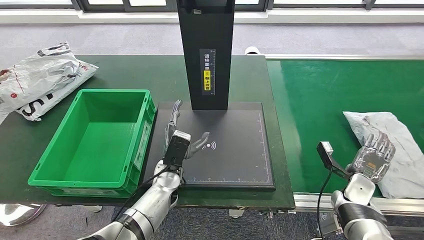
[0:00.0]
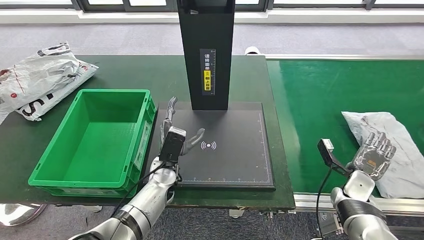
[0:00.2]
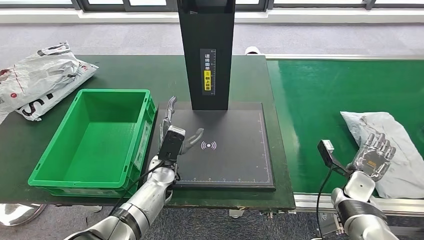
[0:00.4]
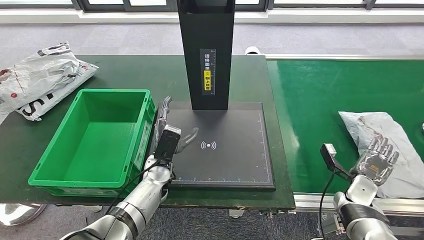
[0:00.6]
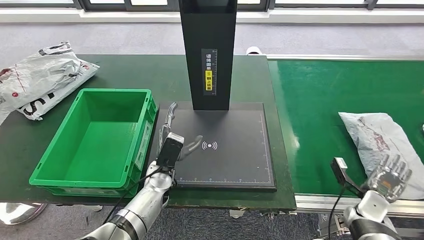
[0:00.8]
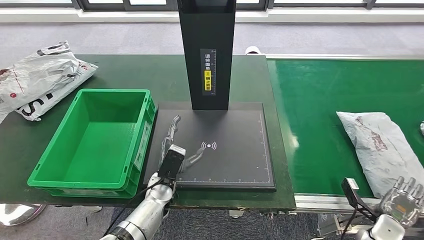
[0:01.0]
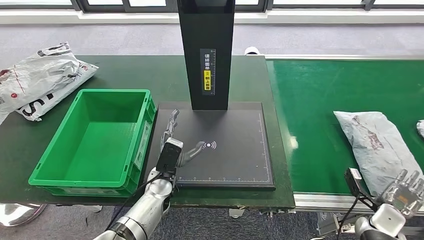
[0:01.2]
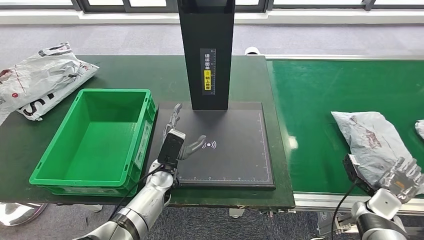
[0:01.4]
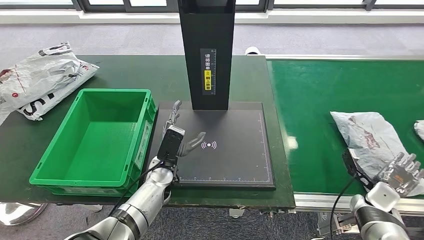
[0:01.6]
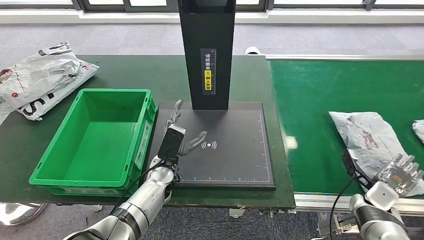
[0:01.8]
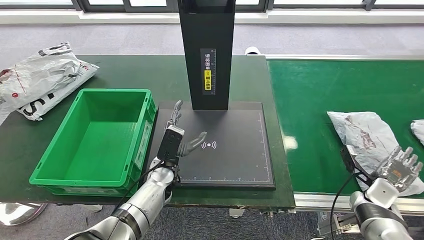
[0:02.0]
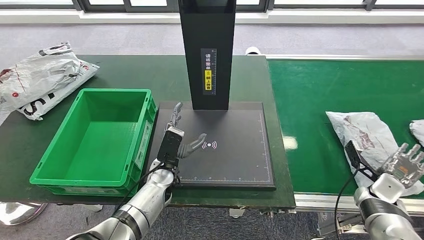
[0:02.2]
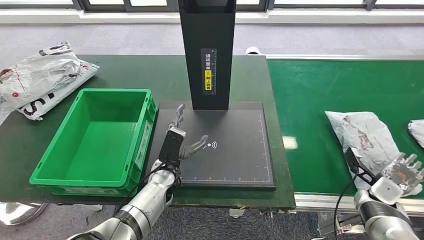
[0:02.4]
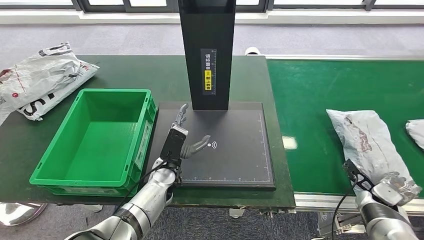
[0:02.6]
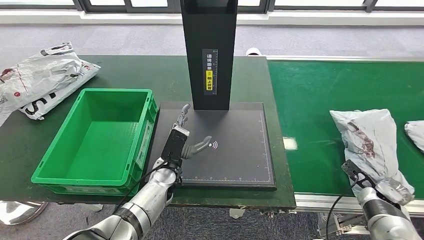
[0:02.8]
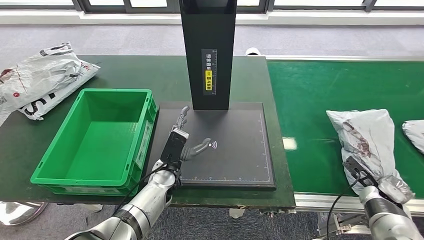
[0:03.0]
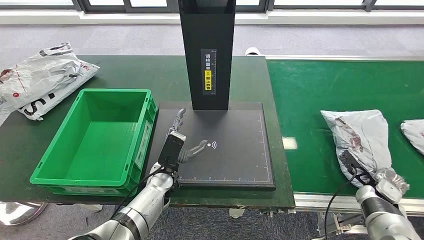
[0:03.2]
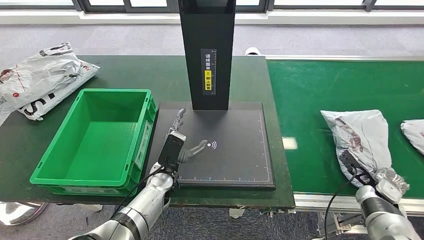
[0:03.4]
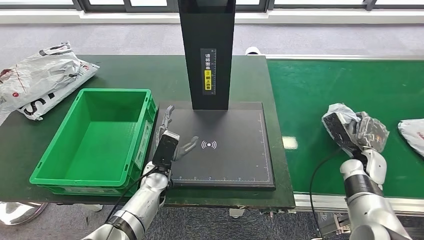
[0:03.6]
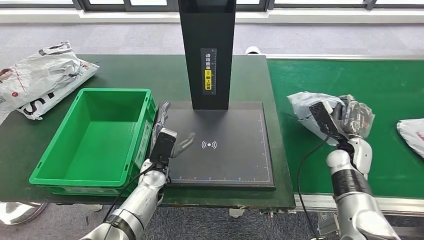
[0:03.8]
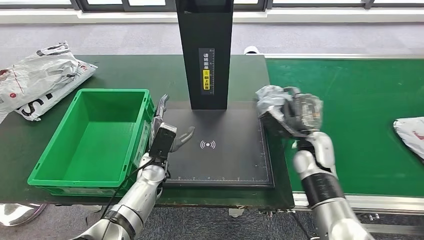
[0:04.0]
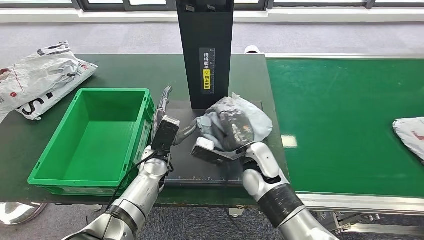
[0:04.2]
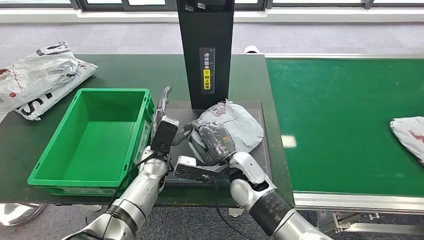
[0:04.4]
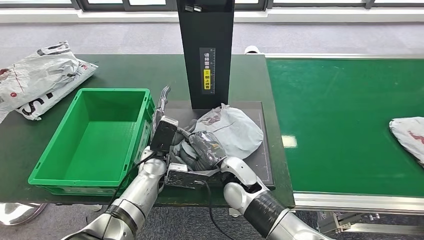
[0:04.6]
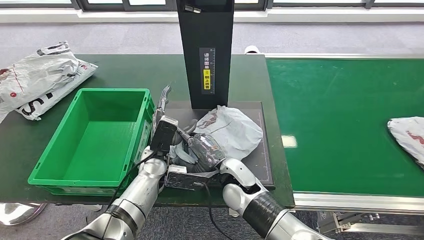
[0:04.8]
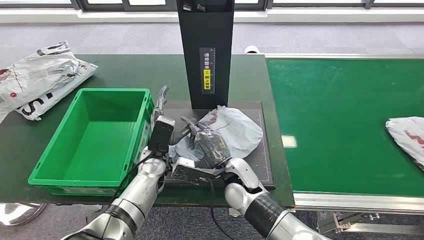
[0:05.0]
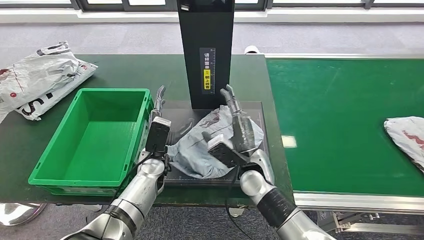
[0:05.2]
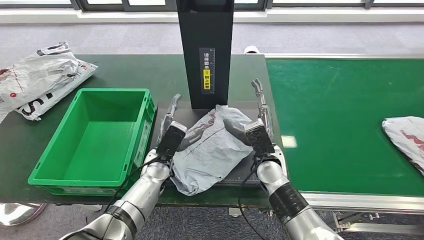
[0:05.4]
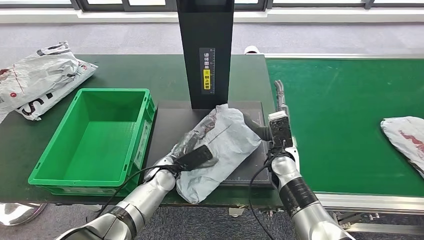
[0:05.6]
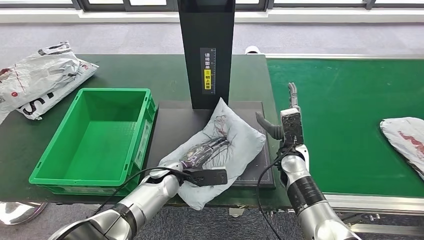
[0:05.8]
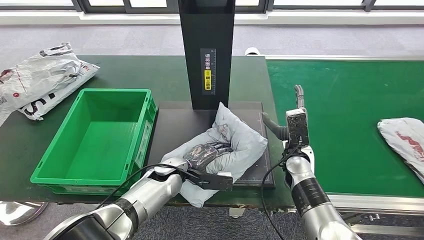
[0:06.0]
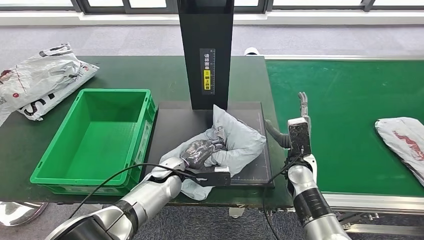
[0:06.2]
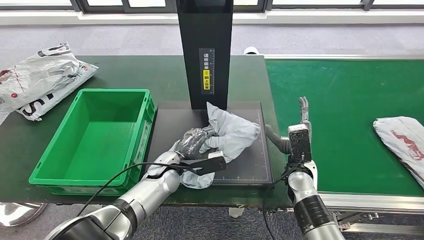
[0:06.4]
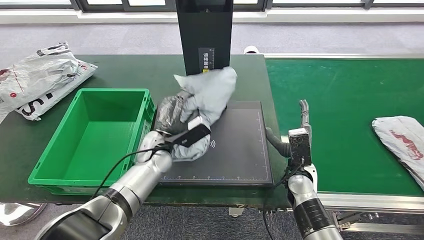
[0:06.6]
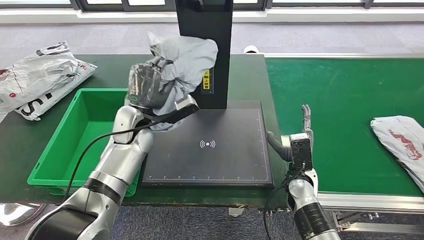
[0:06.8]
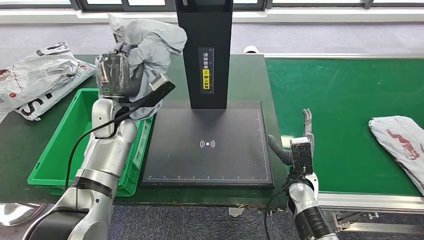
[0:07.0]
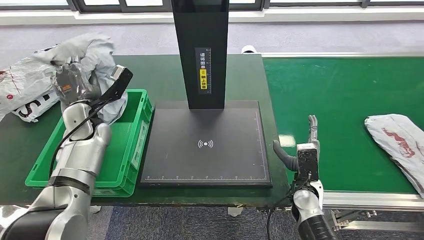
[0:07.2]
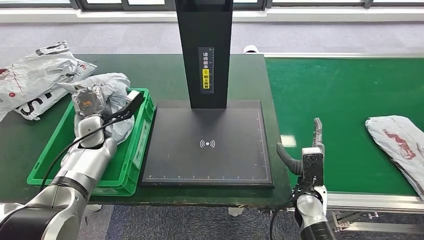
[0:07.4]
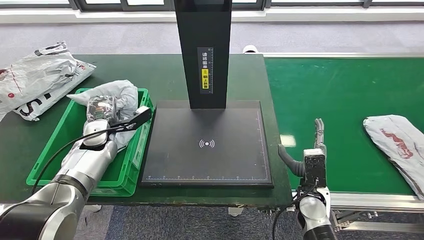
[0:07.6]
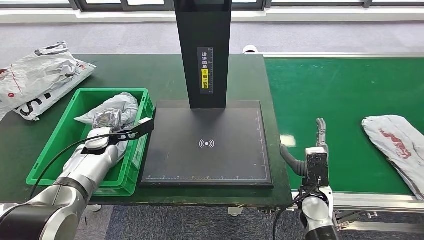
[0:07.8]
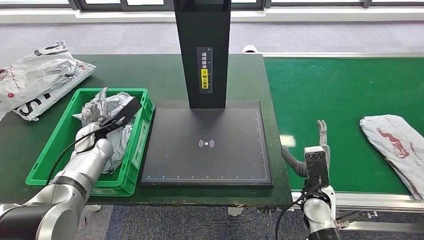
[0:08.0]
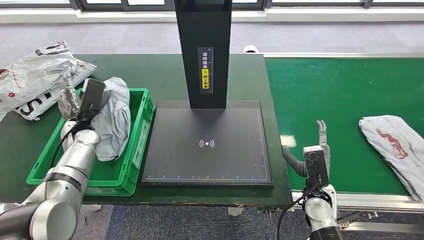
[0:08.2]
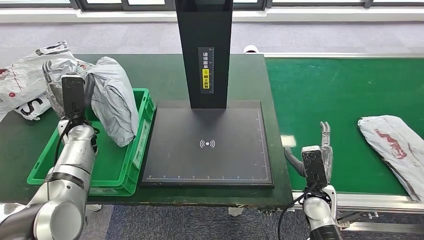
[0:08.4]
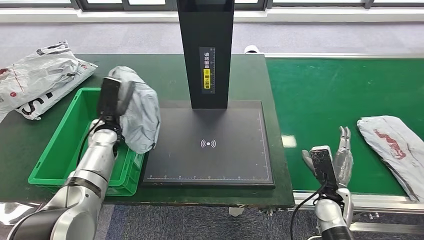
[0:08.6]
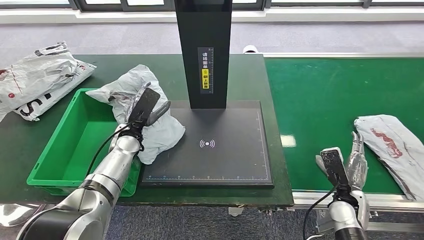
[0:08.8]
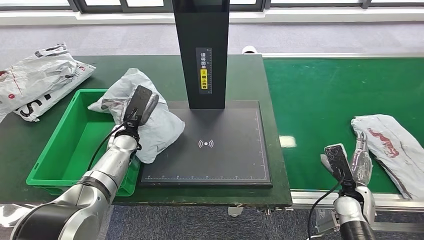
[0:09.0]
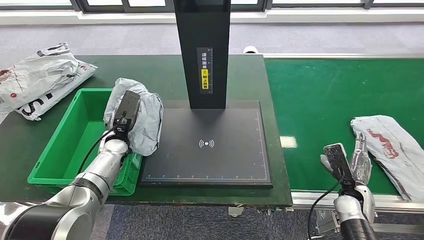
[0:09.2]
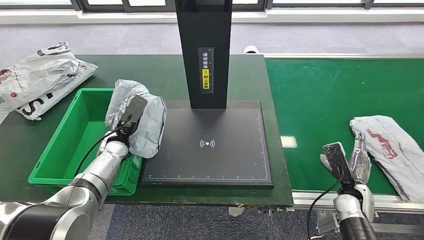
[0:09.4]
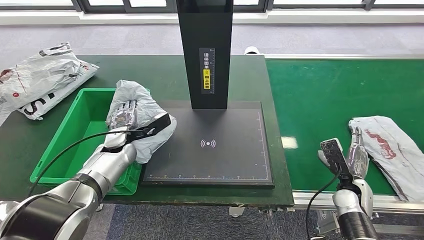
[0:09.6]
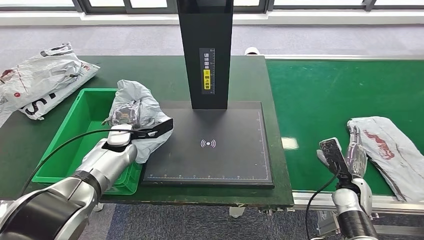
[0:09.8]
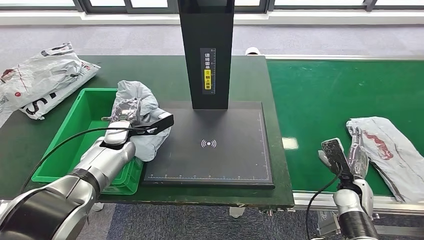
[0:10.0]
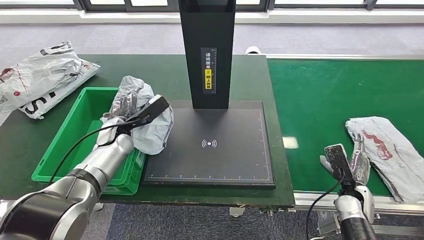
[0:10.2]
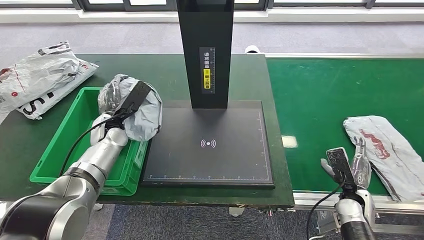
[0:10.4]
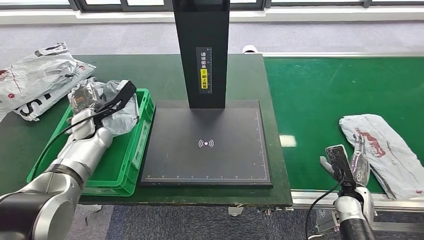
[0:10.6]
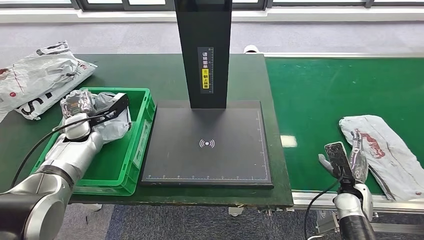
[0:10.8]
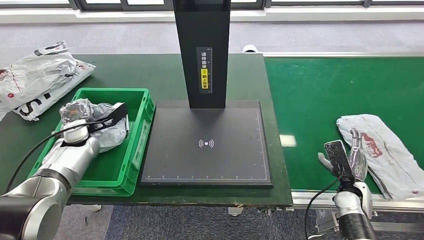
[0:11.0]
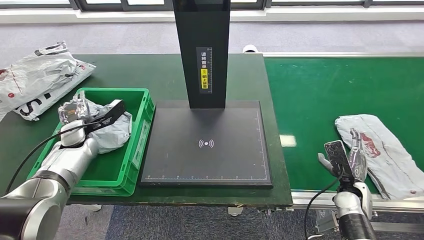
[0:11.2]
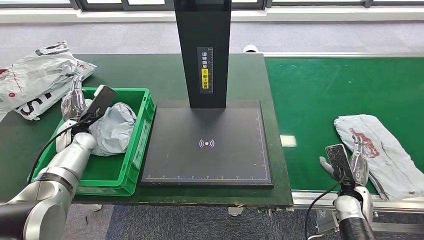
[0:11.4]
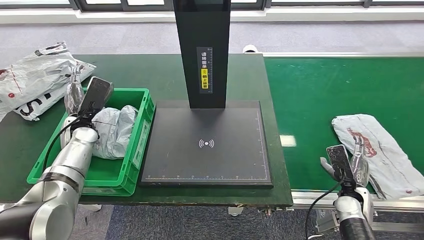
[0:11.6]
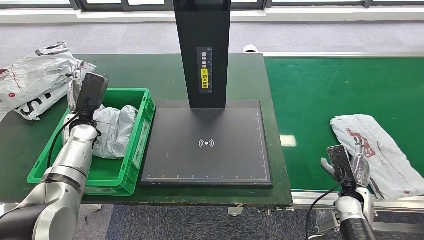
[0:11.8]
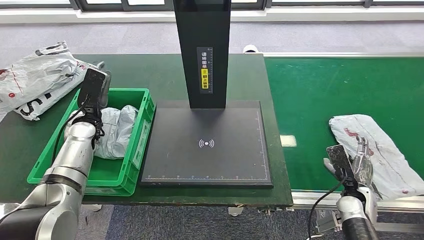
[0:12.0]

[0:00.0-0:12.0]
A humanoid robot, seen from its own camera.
Step, 0:00.0 to 0:04.0: Take the parcel off the conveyor belt.
Step, 0:04.2 to 0:05.4: Place the parcel onto the inbound machine.
Step, 0:05.6 to 0:07.2: Pick up the parcel from the inbound machine.
0:00.0 to 0:01.6: The right hand travels to the right by about 5 cm, and reaches approximately 10 cm backward, then returns.

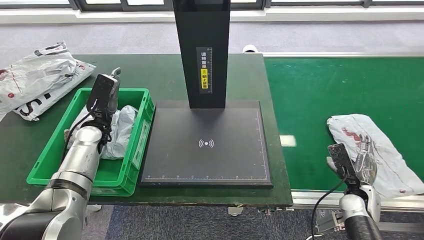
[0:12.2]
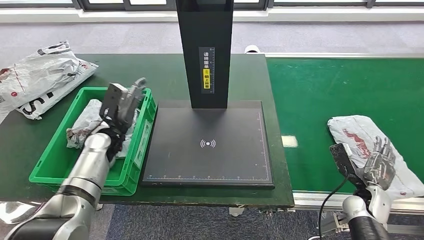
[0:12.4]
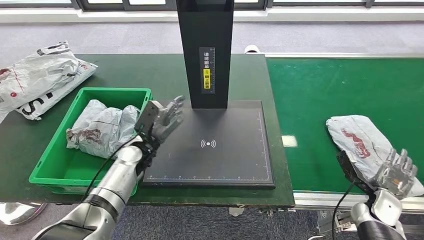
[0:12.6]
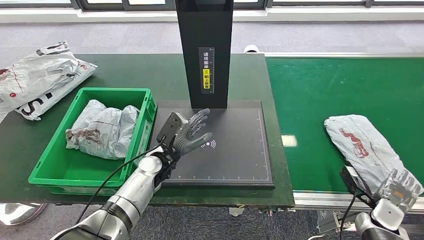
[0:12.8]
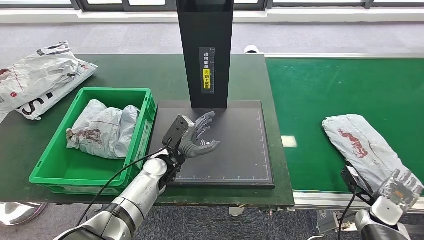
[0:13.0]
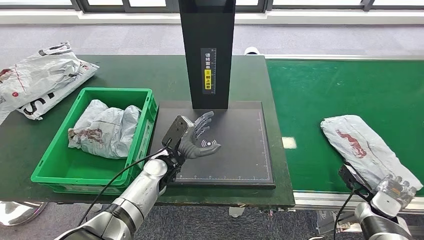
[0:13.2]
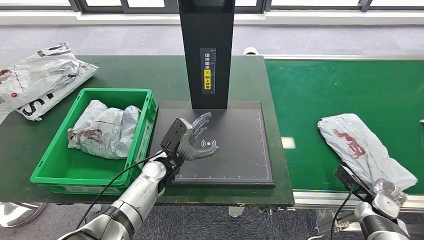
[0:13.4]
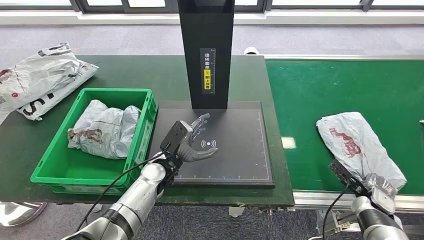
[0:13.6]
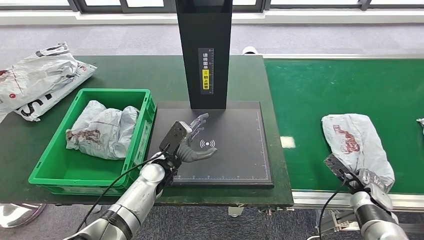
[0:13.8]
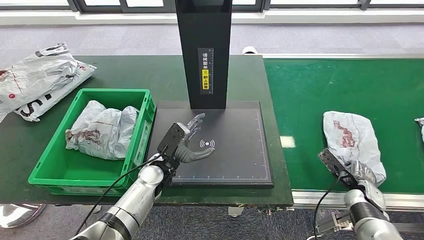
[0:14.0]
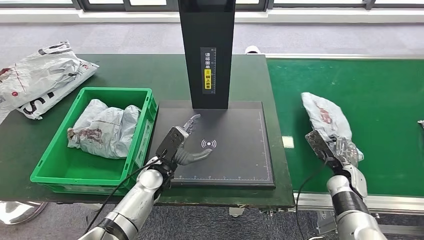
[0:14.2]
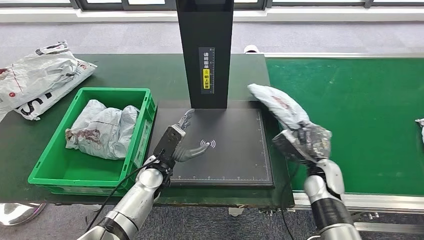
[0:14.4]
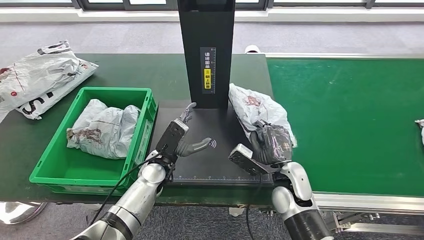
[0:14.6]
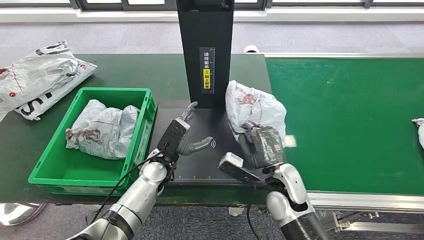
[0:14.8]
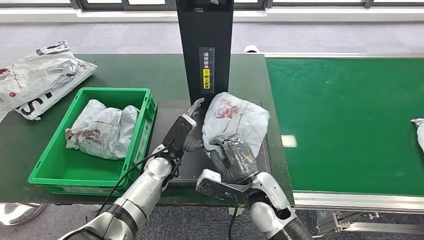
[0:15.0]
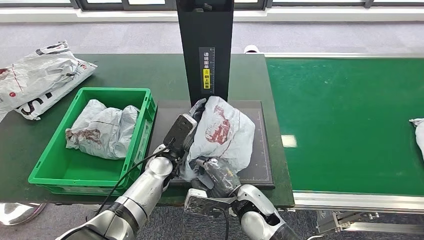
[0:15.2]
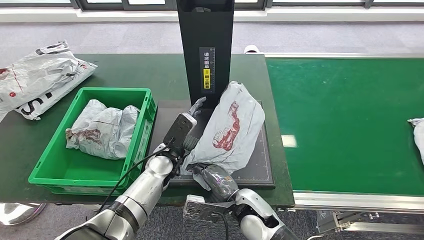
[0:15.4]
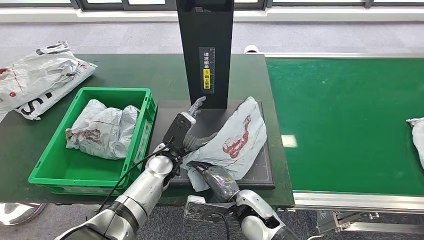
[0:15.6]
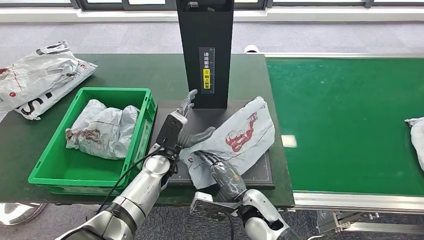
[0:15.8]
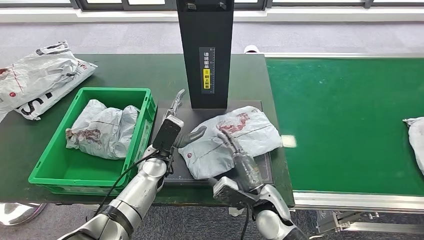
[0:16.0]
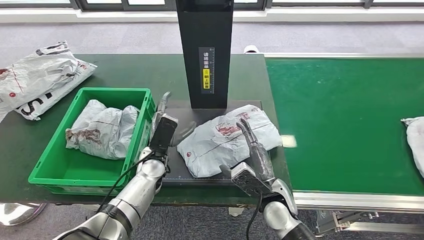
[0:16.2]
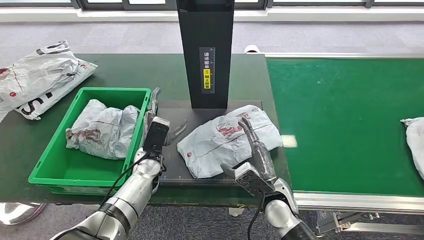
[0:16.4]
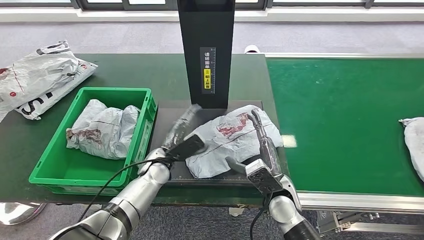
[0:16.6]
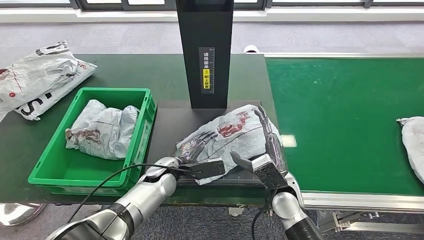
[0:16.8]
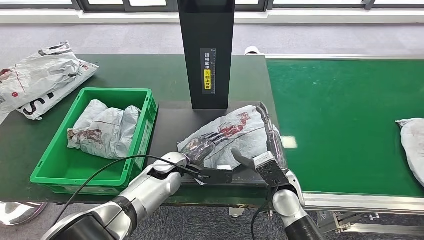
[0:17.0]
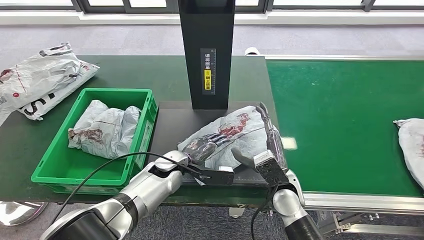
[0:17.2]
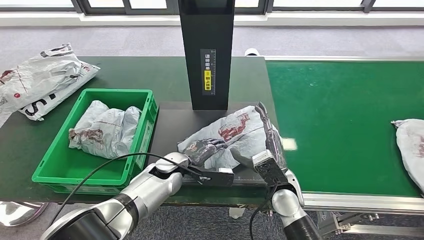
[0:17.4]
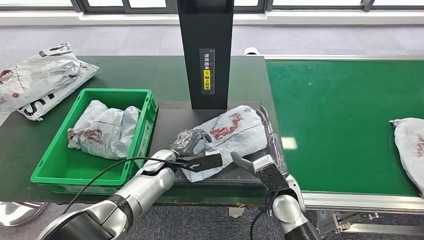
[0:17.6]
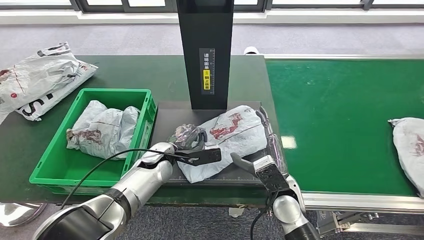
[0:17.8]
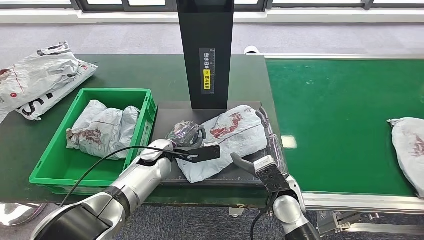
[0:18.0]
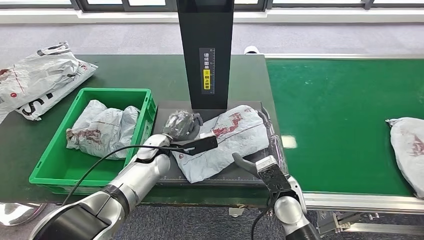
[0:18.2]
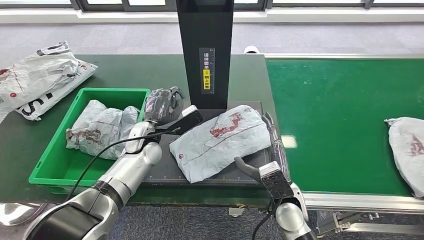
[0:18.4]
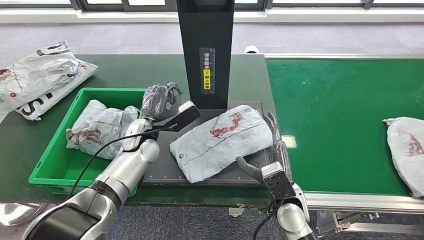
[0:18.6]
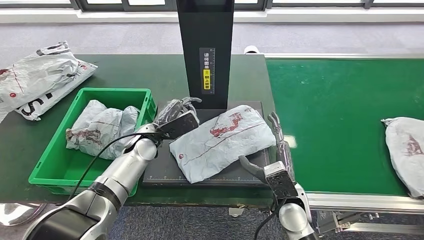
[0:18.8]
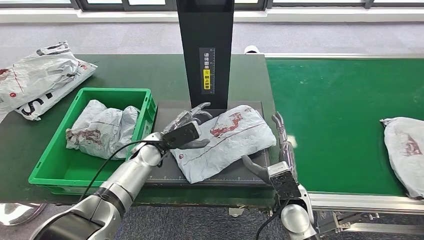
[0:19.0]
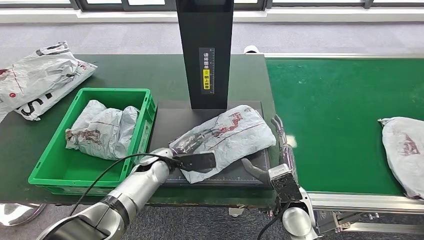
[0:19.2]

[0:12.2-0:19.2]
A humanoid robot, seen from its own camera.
Step, 0:12.6 to 0:14.2: Pick up the parcel from the conveyor belt.
Step, 0:14.4 to 0:16.0: Place the parcel onto the inbound machine.
0:15.0 to 0:16.4: The right hand moves approximately 5 cm.
